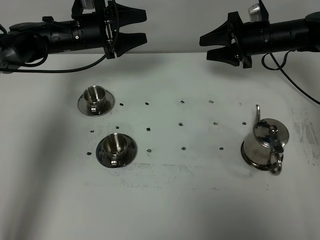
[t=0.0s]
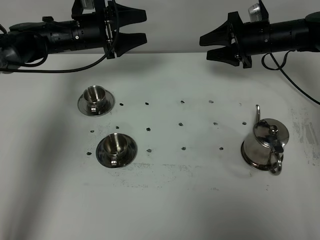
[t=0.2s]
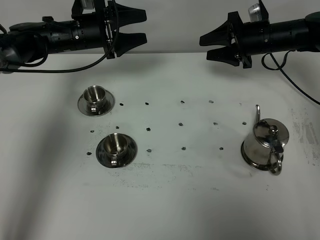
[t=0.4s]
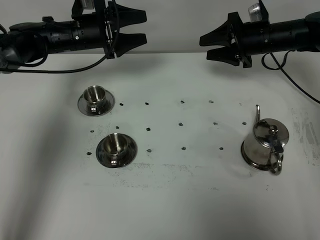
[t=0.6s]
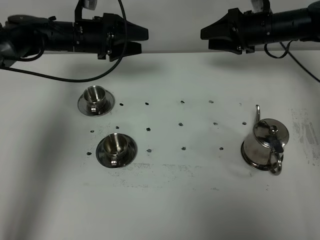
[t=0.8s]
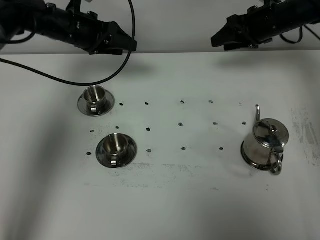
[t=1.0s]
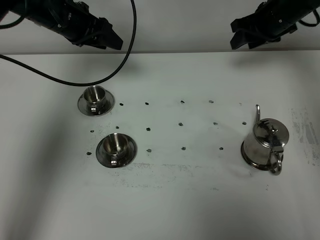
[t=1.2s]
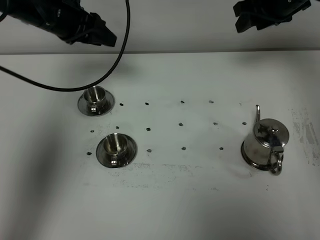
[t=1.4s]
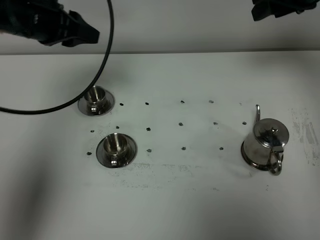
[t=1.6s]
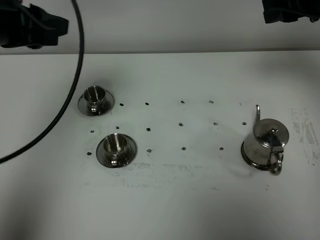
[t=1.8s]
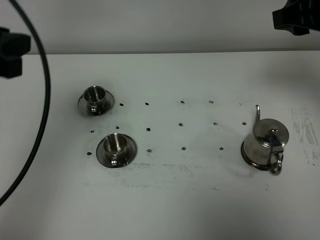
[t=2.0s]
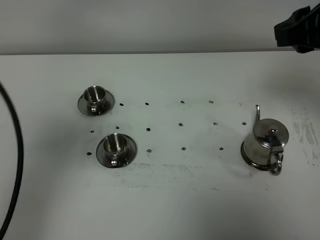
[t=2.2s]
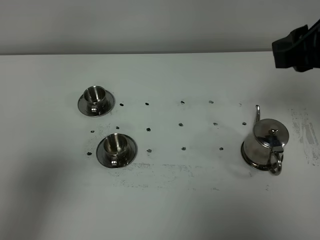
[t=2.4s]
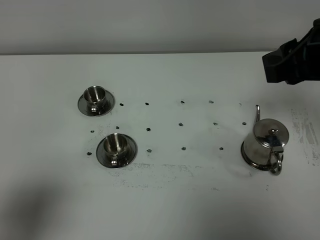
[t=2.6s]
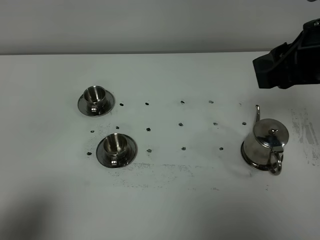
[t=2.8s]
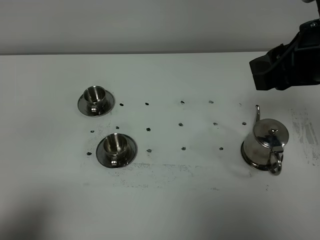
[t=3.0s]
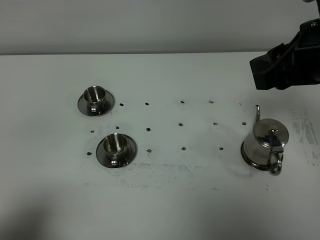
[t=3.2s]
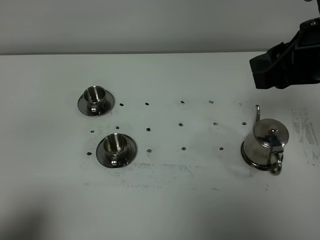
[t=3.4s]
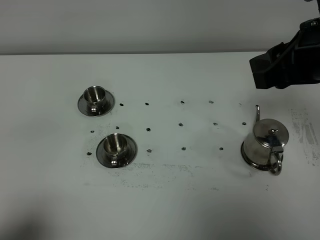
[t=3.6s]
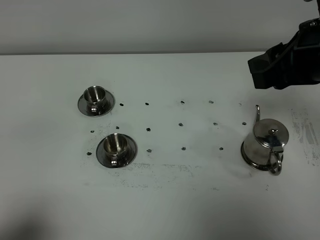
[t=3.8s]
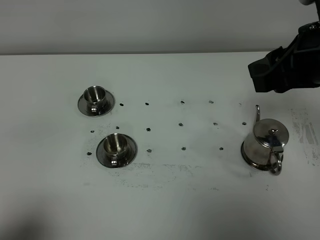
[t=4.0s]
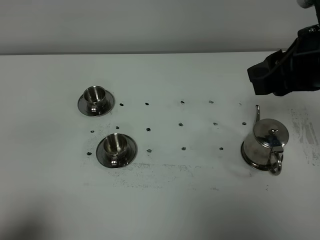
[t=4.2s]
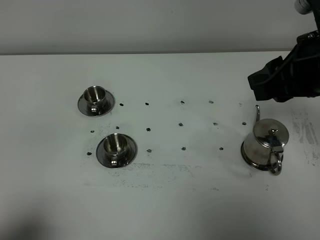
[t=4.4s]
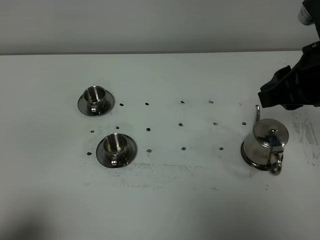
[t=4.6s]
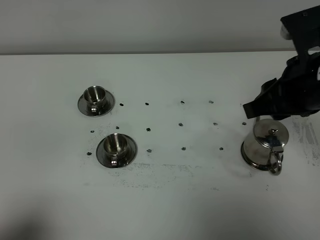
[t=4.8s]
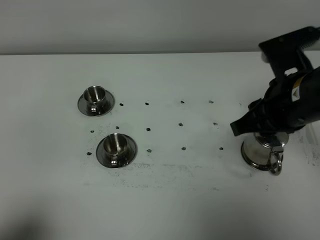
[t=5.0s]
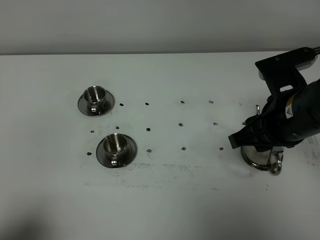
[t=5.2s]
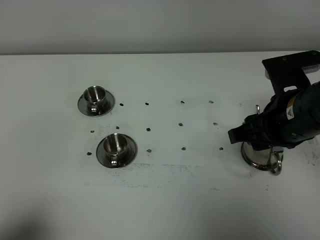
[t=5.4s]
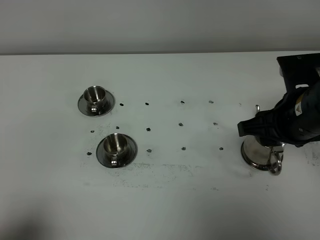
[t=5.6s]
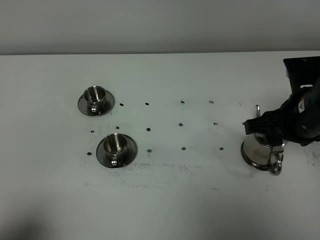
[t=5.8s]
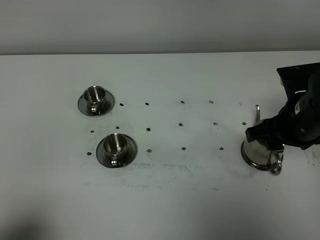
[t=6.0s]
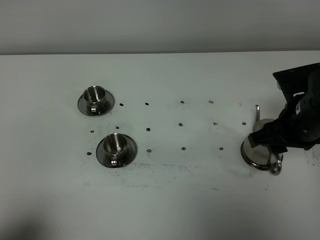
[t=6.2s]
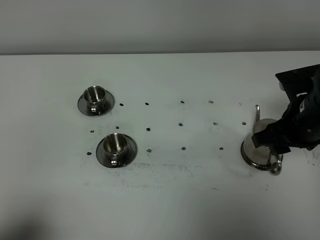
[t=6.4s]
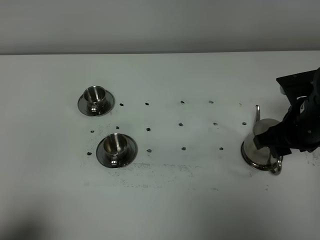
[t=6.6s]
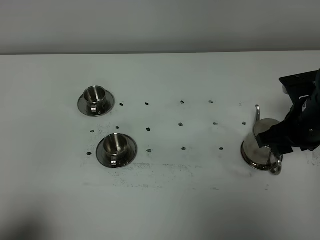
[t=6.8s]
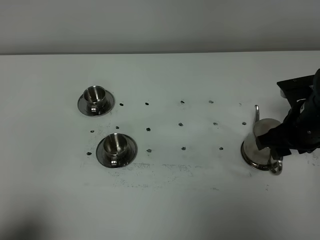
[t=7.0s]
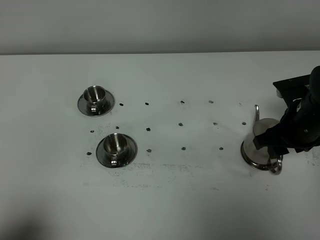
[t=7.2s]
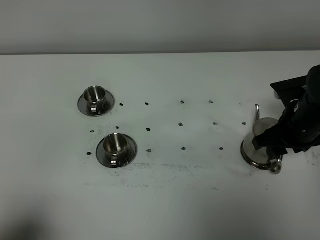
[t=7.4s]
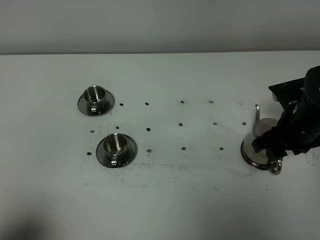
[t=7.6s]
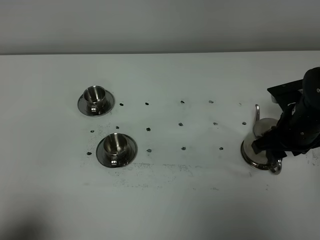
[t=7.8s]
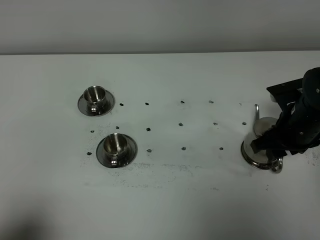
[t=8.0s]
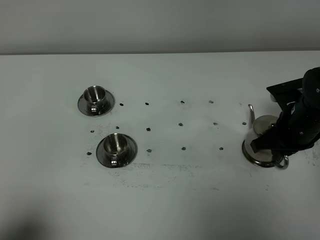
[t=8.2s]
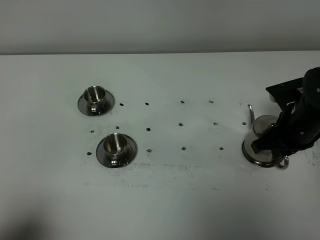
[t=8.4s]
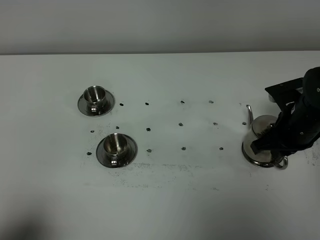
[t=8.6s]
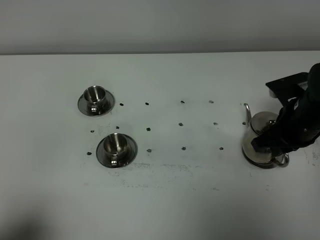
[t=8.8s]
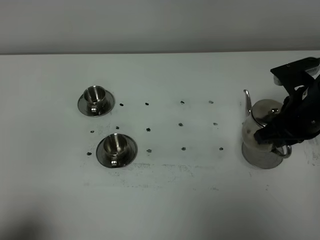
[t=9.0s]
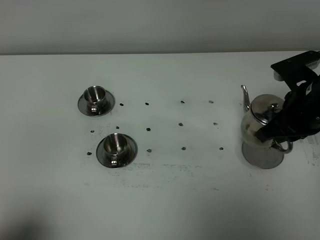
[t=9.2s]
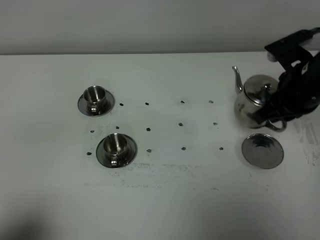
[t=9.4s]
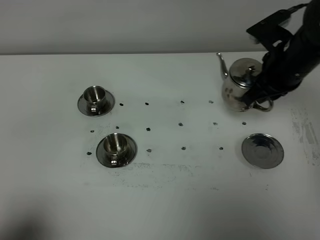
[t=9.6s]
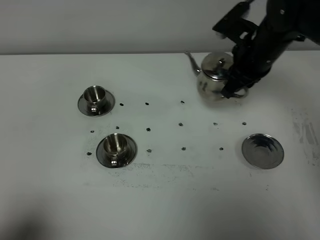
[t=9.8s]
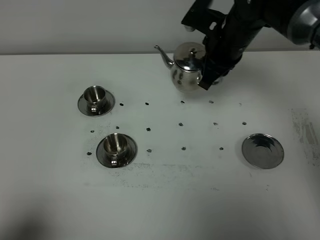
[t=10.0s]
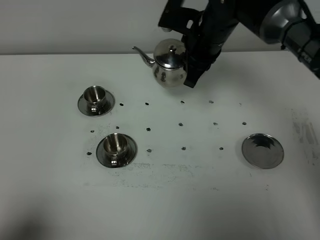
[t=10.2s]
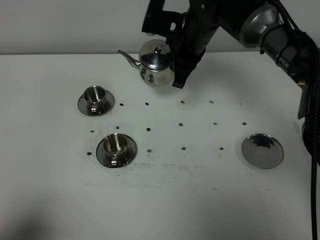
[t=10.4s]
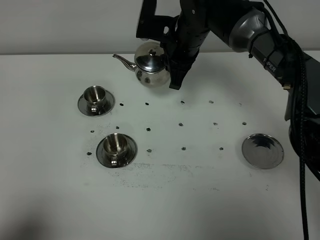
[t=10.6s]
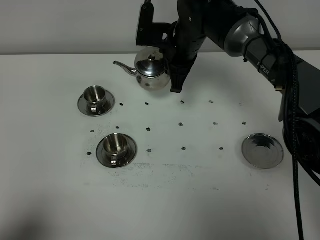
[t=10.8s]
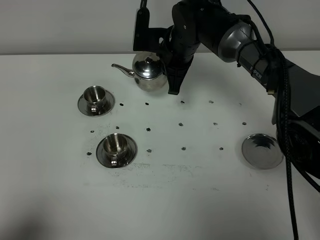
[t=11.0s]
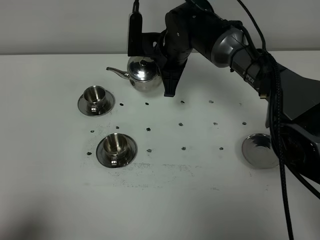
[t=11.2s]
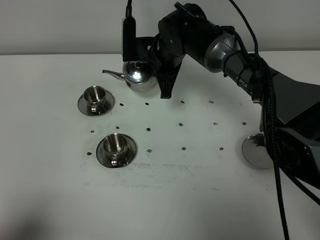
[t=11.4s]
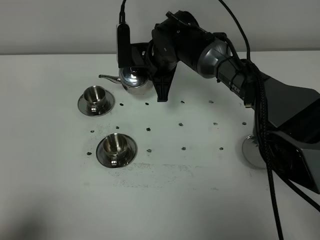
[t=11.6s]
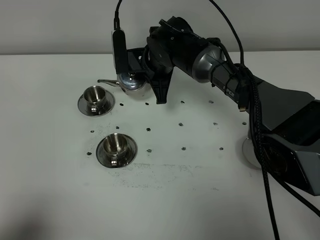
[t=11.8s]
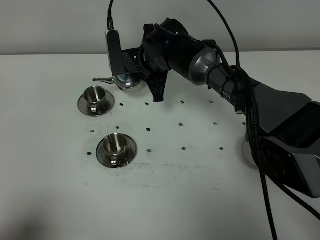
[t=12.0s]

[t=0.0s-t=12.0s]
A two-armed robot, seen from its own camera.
Task of the whole recording: grasp the stainless steel teapot and pour the tea into the two stainless steel teacups one by one, put the stainless steel teapot back in its original place.
Step, t=0.0s to t=9.2s: Pick up the teapot with the right gripper.
t=0.0s to t=1.6s: Both grippers travel together upward and backward, about 20 cm. The left gripper closes.
t=1.6s to t=3.0s: The left gripper heads backward, covering roughly 35 cm; the right gripper is displaced backward by about 15 cm.
t=3.0s to t=4.4s: The grippers stay close to where they were, moving slightly.
t=4.4s to t=6.0s: The right gripper shifts approximately 10 cm downward.
t=6.0s to t=7.6s: The right gripper goes some 5 cm downward.
t=7.6s to t=9.0s: The right gripper goes approximately 5 cm upward, and closes its fingers.
t=9.0s to t=10.4s: The right gripper heads forward and to the left, covering about 25 cm.
t=10.4s to t=12.0s: The right gripper heads to the left and downward, covering approximately 10 cm.

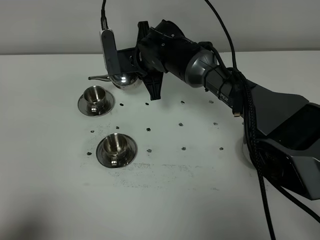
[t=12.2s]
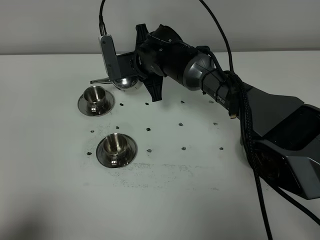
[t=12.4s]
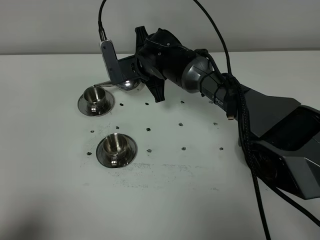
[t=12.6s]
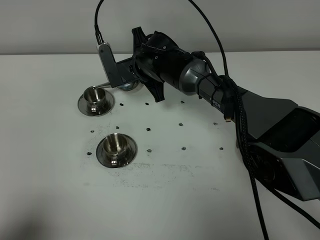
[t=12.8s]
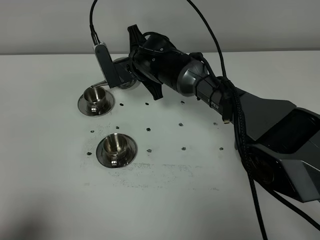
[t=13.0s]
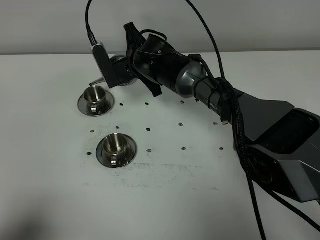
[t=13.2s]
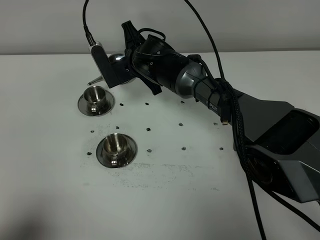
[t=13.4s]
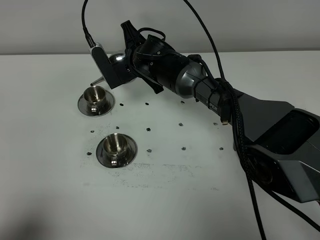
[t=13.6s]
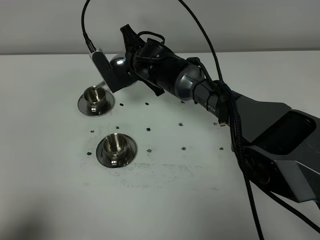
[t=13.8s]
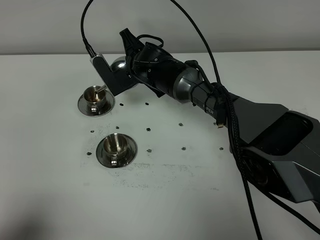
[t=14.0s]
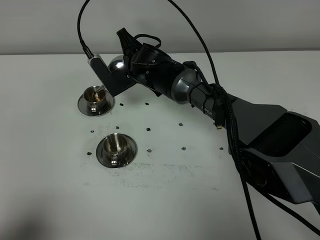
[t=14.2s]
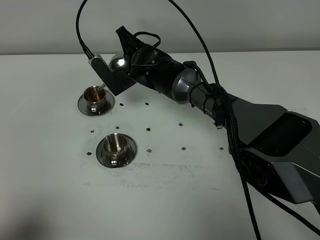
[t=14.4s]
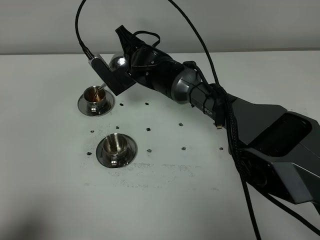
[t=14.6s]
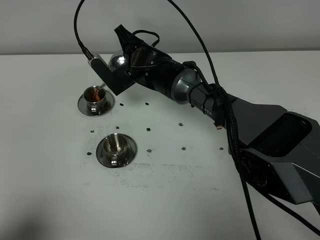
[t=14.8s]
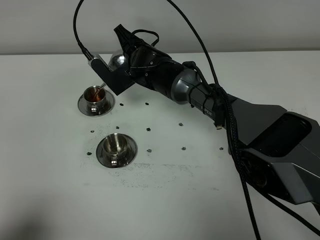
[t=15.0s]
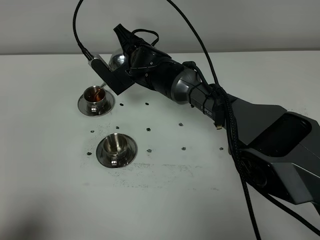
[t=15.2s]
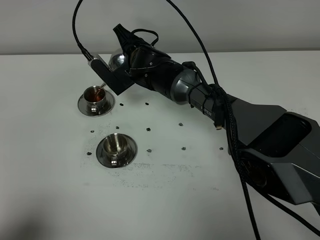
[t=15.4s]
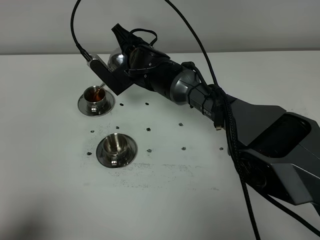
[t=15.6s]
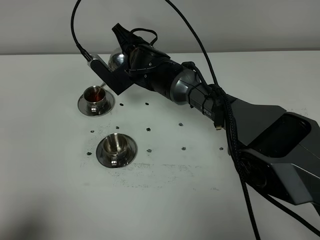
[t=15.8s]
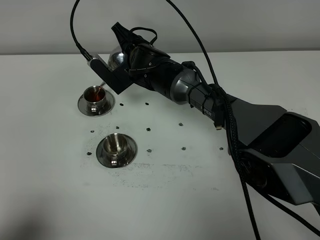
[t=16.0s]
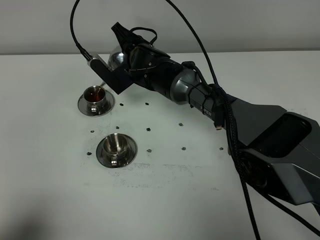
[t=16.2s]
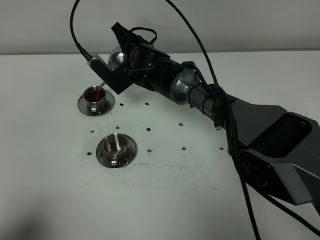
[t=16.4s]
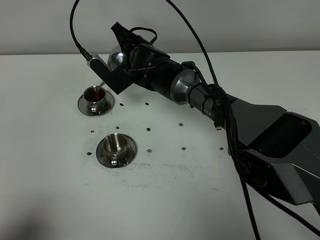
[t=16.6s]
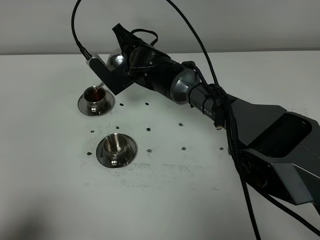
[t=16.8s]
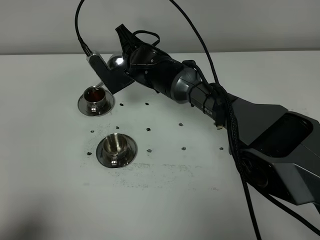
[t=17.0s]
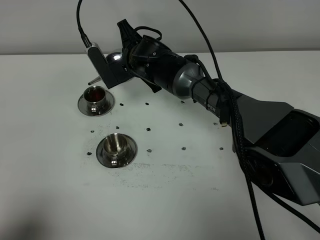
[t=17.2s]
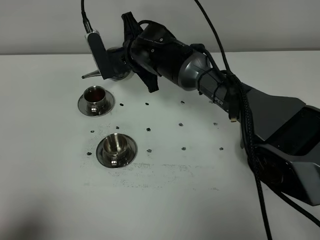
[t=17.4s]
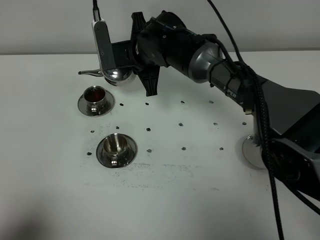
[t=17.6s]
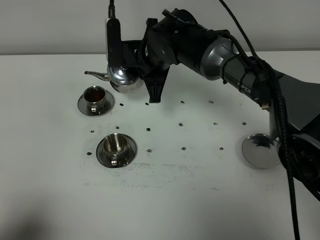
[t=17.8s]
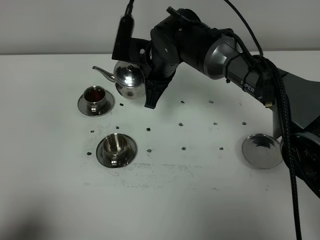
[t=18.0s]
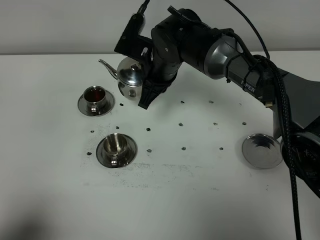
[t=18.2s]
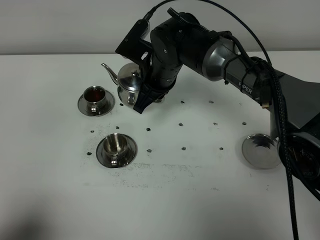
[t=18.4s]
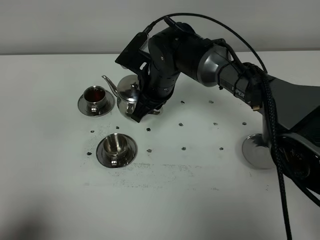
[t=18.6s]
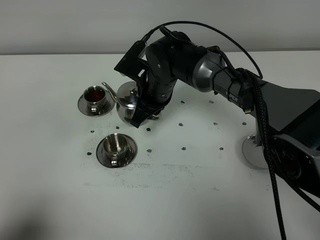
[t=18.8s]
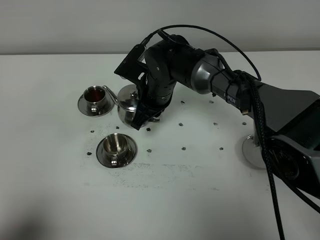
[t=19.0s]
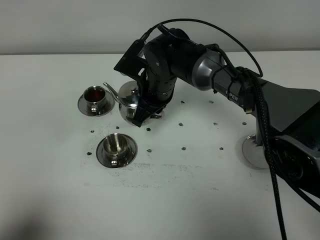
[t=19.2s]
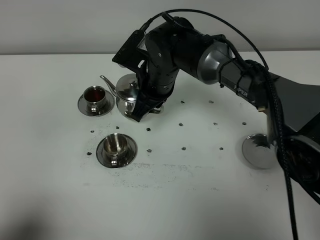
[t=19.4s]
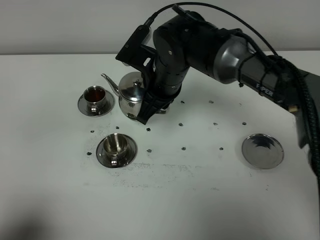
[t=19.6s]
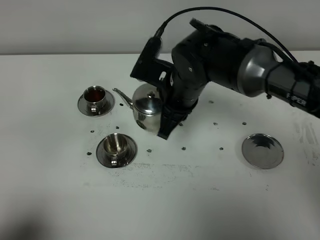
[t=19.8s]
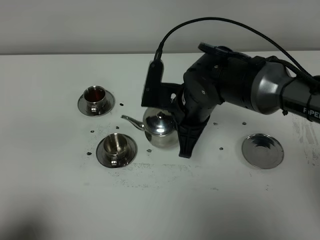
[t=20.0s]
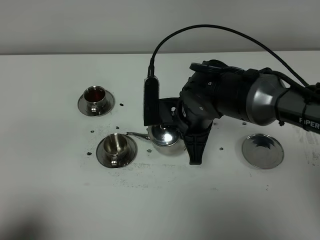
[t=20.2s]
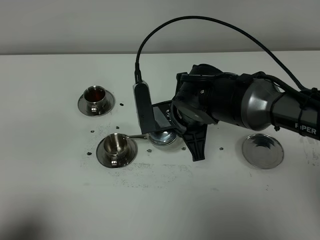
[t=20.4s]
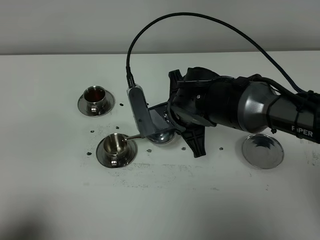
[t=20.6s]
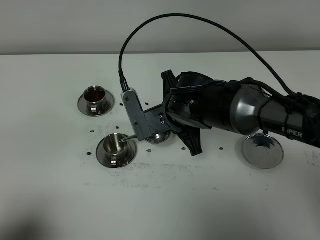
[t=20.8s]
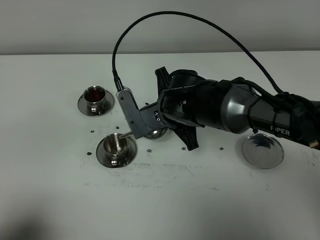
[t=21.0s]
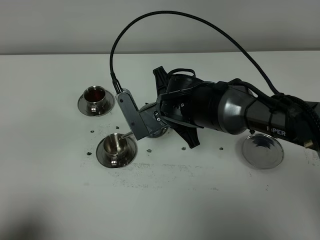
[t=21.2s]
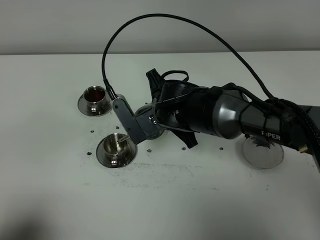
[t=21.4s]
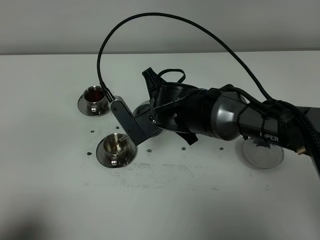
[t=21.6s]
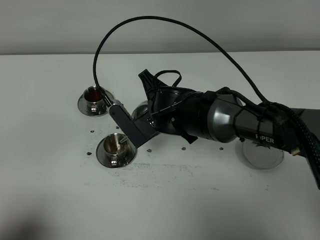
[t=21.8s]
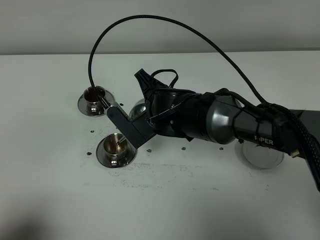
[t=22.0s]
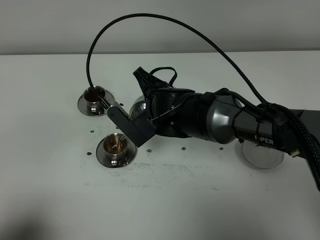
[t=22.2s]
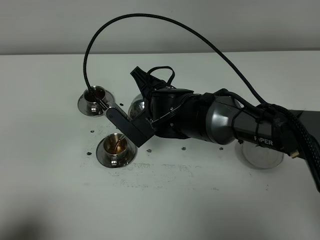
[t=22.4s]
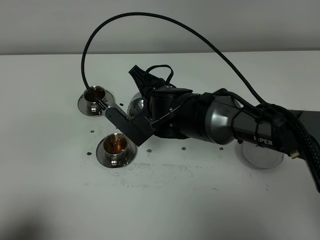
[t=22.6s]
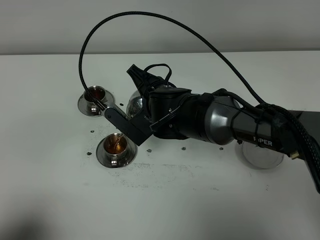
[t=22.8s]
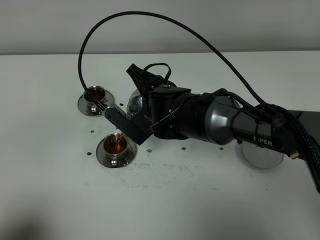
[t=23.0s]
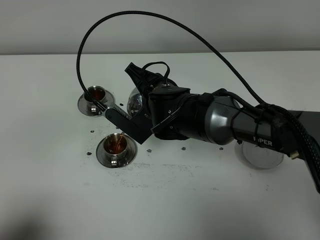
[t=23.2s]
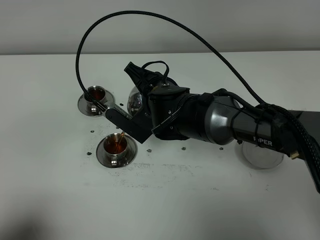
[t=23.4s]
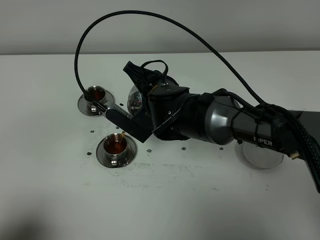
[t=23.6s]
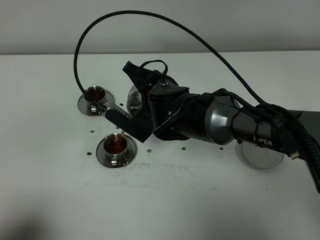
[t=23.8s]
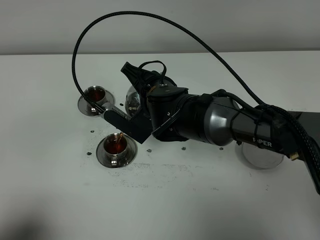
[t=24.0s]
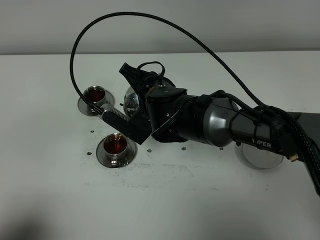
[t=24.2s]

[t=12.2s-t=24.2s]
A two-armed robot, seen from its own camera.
Task of the whole recording: grasp the stainless steel teapot and pour the tea into the two stainless steel teacups one by one, put the stainless steel teapot back in its original place.
t=13.8s to t=15.2s: The grippers stay close to where they were, moving slightly.
t=15.2s to t=16.6s: Both grippers stay about where they are.
t=16.6s to t=18.2s: The right gripper is displaced backward by roughly 5 cm.
t=18.2s to t=19.8s: The right gripper goes some 5 cm backward.
t=22.6s to t=24.2s: The grippers make only small movements.
